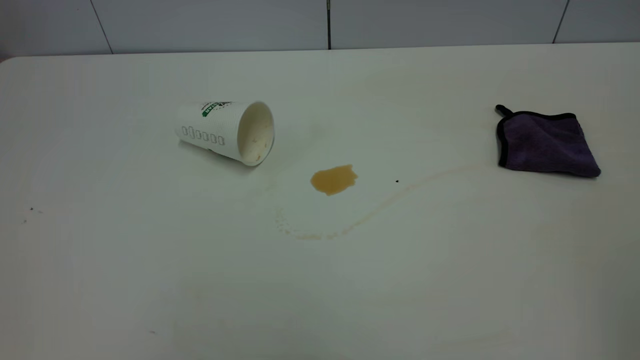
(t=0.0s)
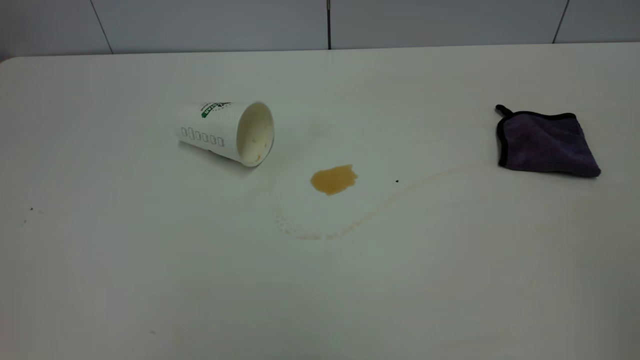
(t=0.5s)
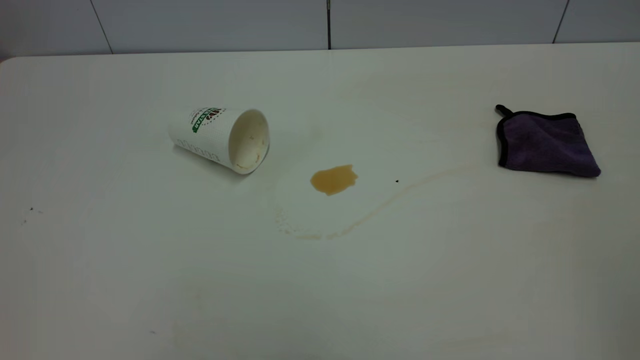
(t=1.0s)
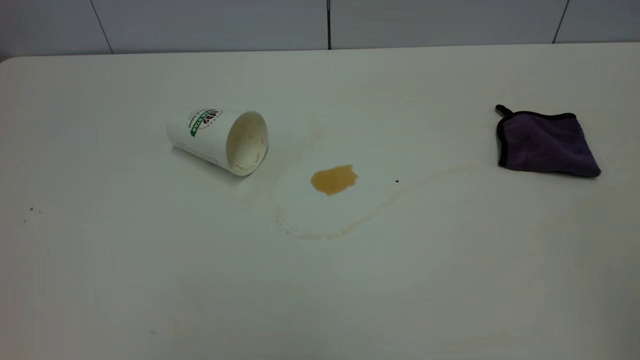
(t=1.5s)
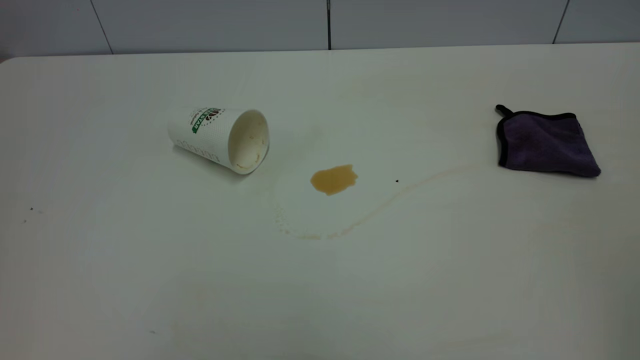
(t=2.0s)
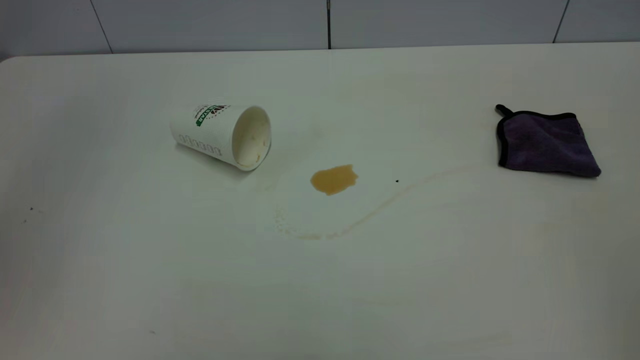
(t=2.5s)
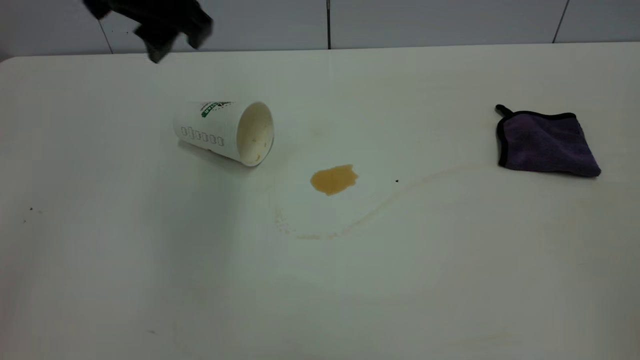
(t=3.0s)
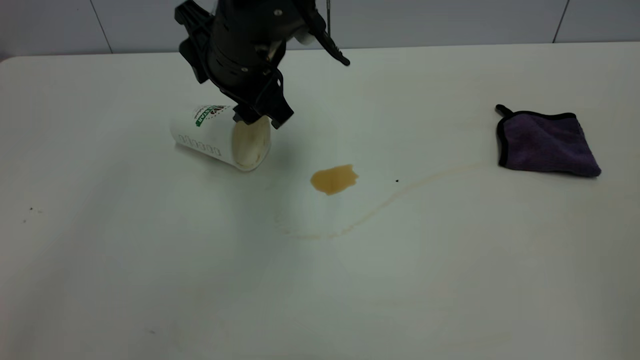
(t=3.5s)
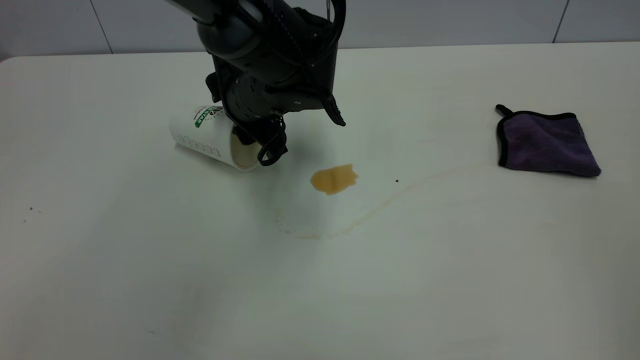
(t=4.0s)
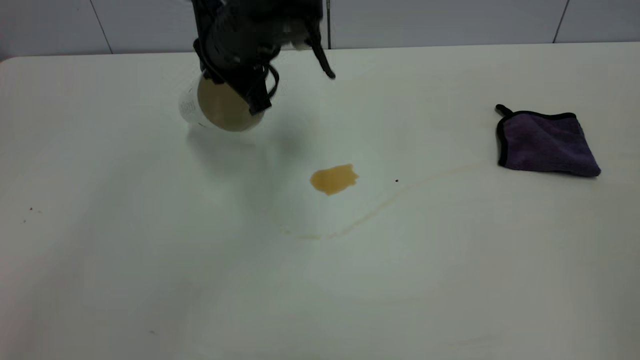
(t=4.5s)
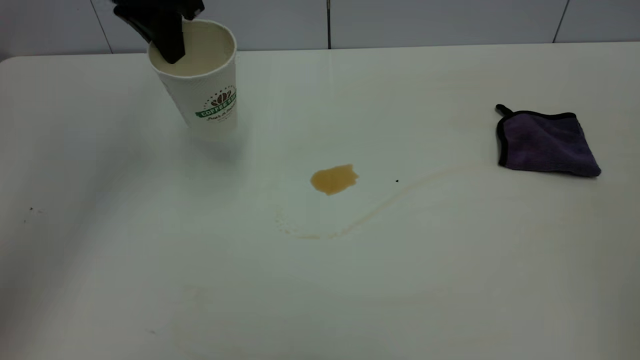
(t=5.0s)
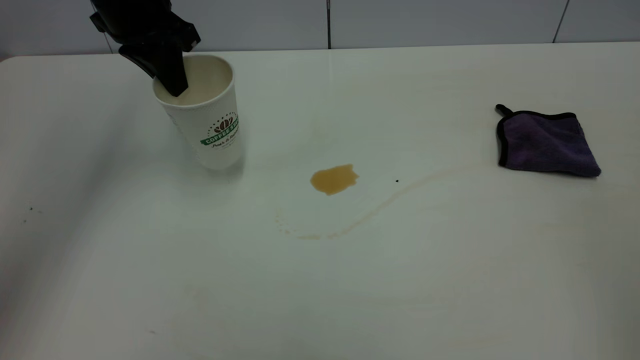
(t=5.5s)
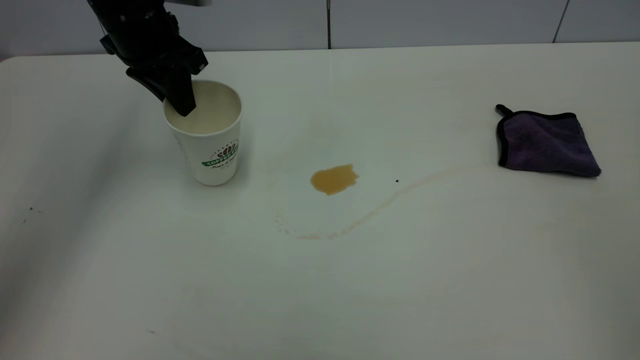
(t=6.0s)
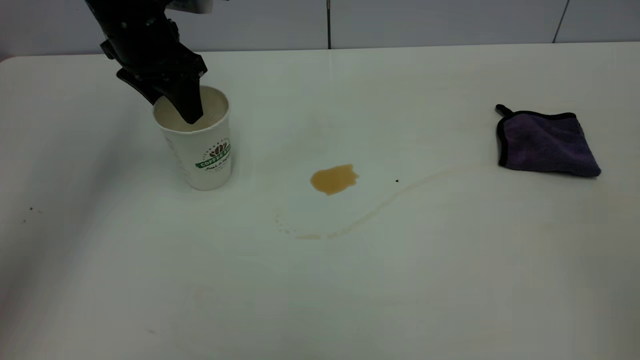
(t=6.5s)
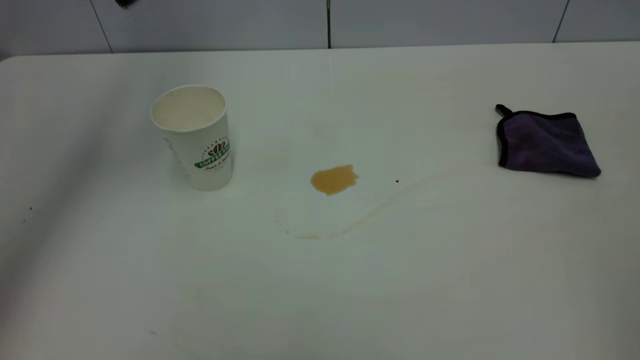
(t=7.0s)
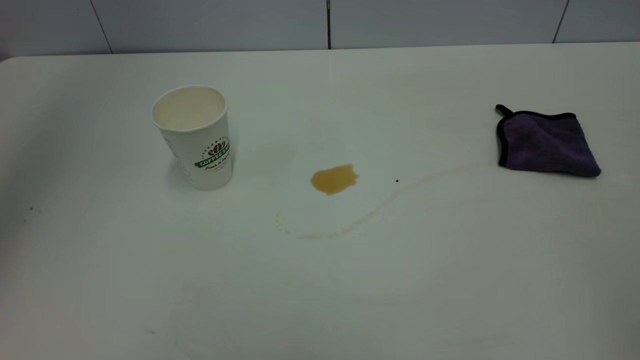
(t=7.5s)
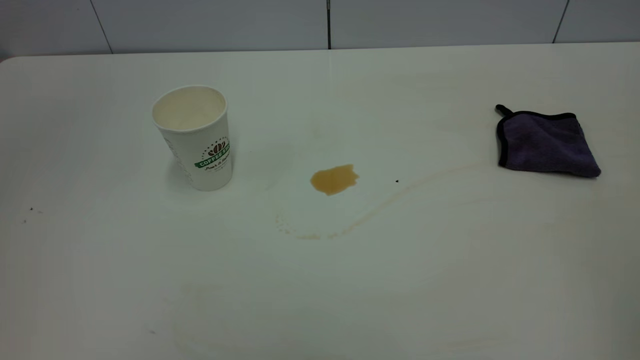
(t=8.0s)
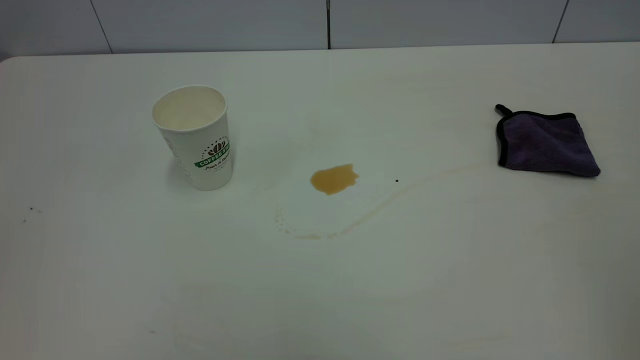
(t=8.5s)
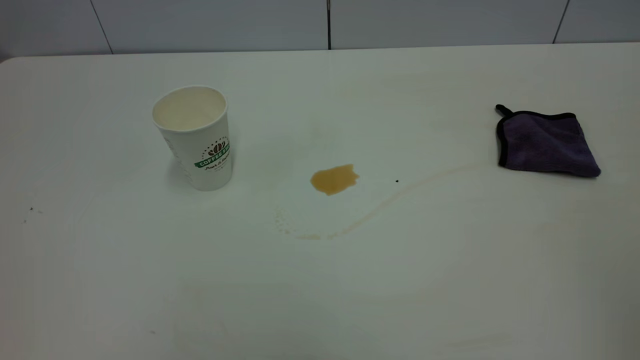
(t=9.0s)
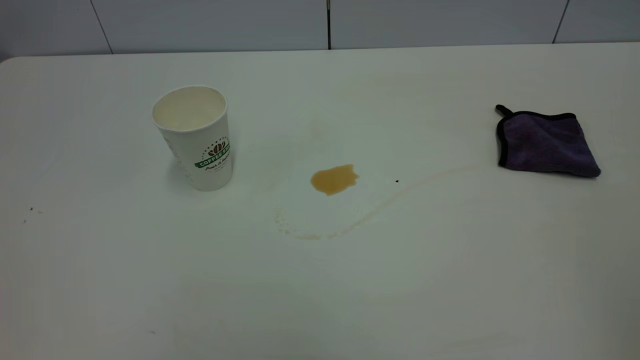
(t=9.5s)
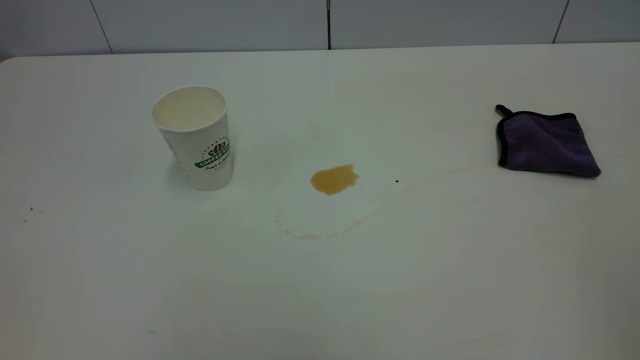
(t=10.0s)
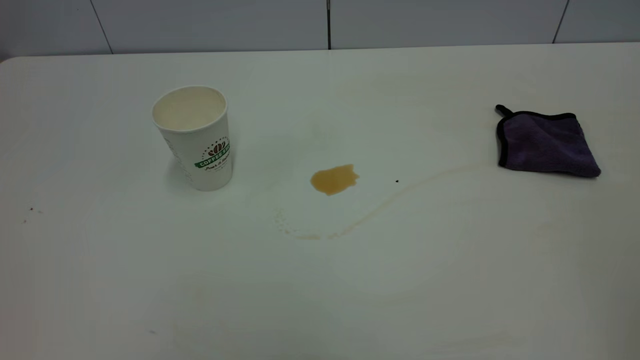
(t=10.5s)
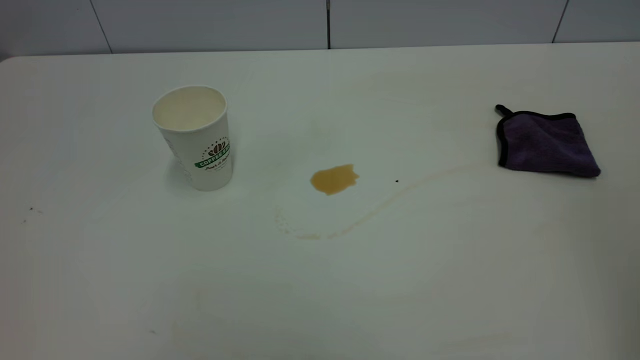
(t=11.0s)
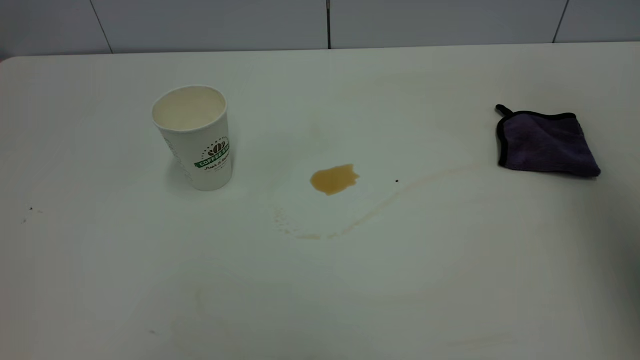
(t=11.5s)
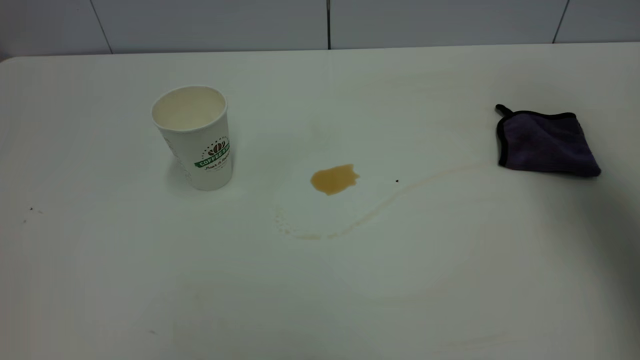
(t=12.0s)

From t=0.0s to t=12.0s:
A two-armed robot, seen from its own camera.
Task of the whole recording: the left gripper pick up the fallen cup and place it upright, the right gripper grasp the purple rag and wipe the tea stain on the table, the right gripper put the purple rag back in its original position.
Step, from t=0.0s to t=6.5s: Stand the paper cup upright.
From t=0.0s to t=2.0s: The left gripper goes roughly 10 cm forward.
From t=2.0s to t=4.0s: The left gripper heads forward, downward and to the right, covering some 50 cm.
From t=4.0s to t=6.0s: The left gripper is displaced to the left and upward by about 15 cm, and closes its fingers.
From t=6.0s to t=8.0s: The left gripper shifts approximately 40 cm backward and upward, and opens its fingers.
From t=10.0s to t=12.0s: The right gripper is displaced forward by some 35 cm, and opens up.

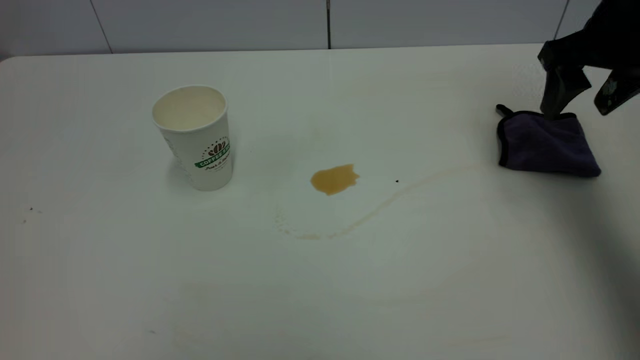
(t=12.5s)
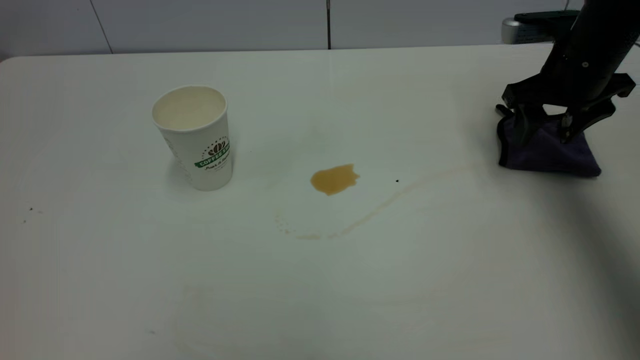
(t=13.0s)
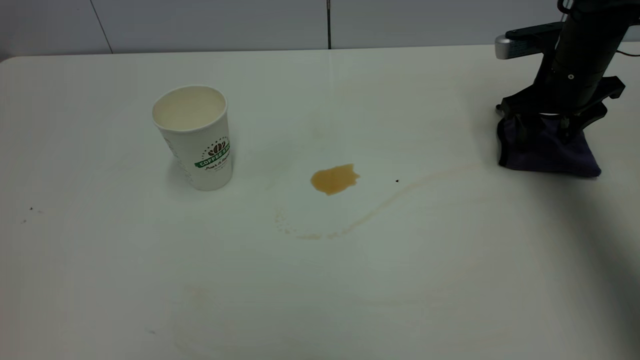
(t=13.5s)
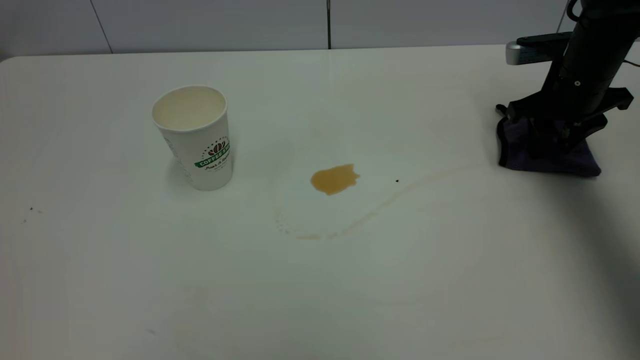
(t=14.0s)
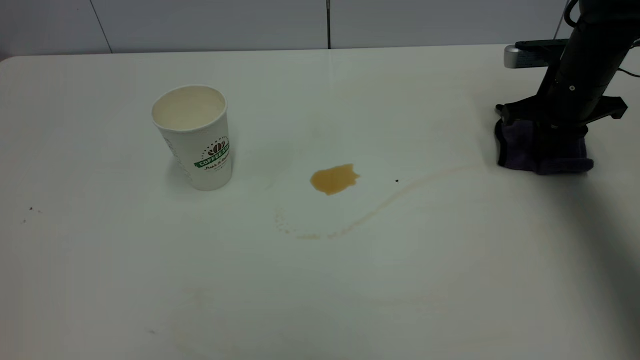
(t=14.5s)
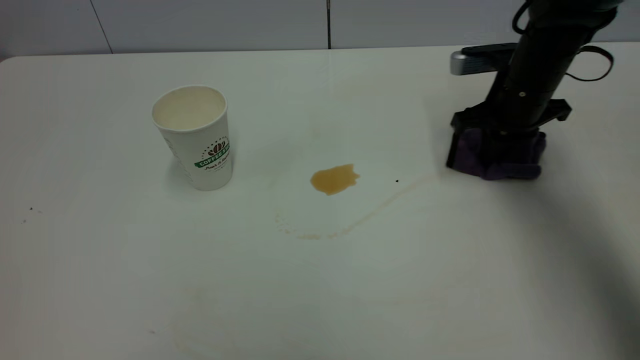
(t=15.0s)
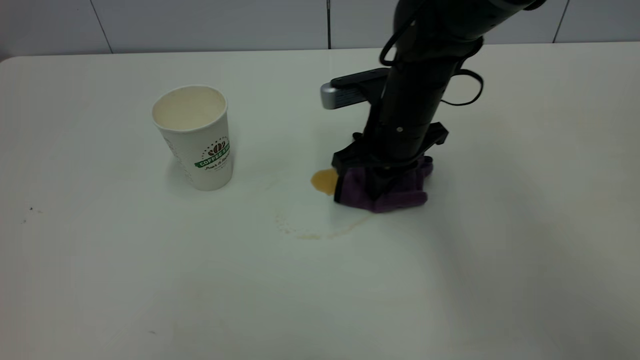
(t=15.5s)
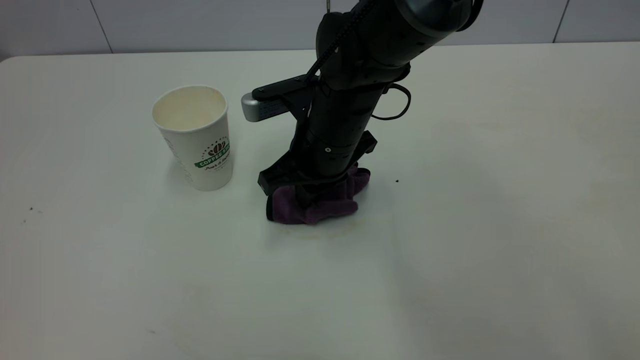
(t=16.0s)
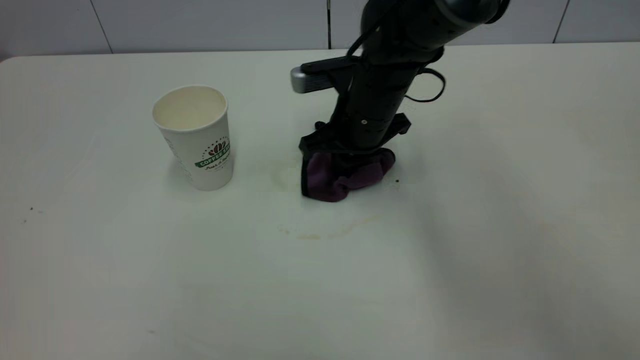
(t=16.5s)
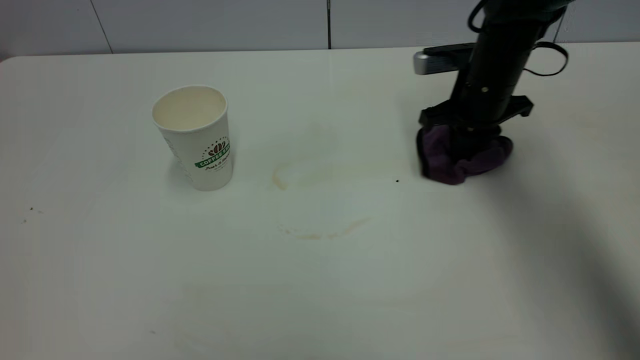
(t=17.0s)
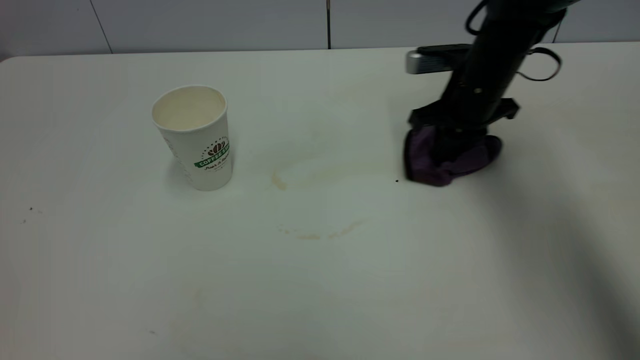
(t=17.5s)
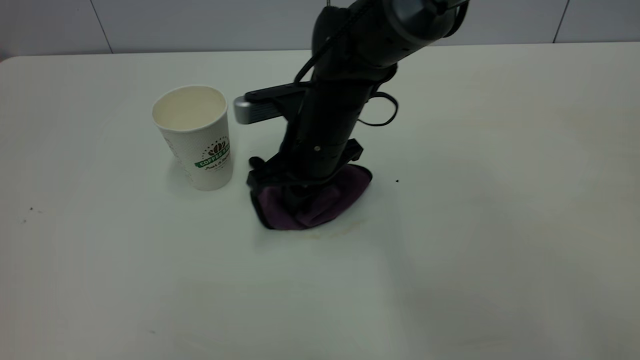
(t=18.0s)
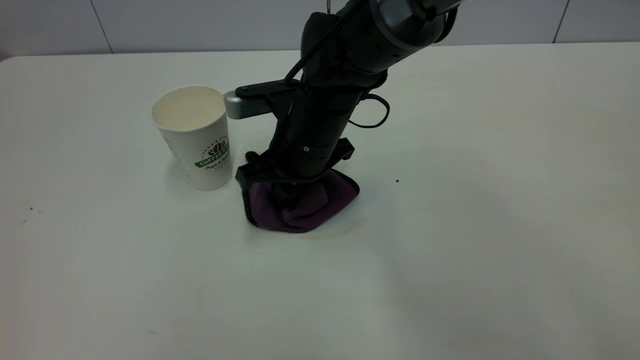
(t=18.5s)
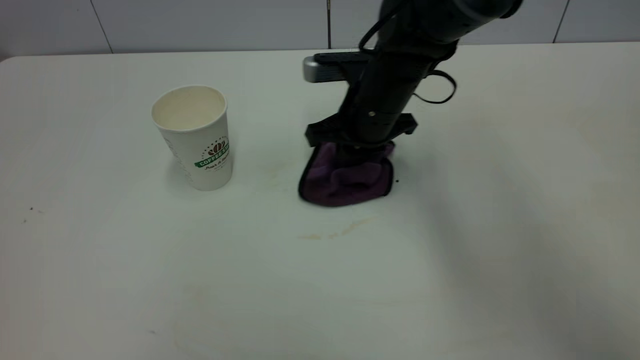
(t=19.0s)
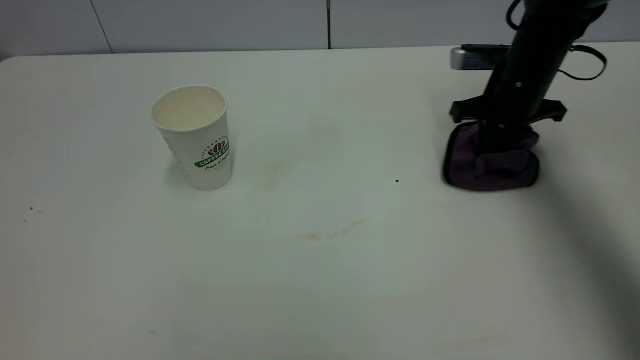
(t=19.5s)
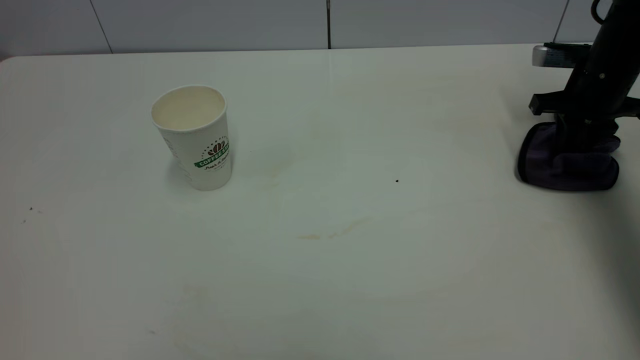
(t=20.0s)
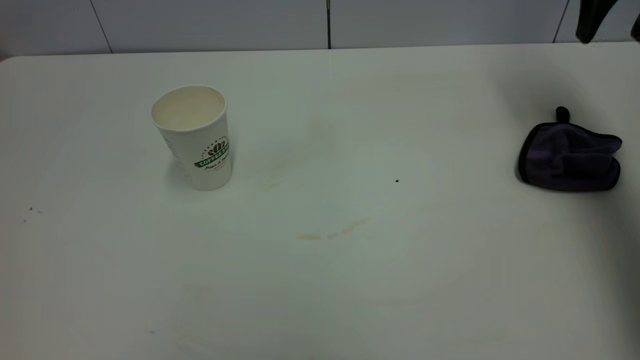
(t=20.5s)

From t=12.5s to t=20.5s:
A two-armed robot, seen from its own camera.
Task of the whole recording: the left gripper pick up the fallen cup and place it upright, the right gripper grasp the purple rag and wipe the tea stain on the table, the right gripper put the purple rag back in its original position.
Step, from t=12.5s to t=20.0s: Wipe the stains off the table with a rag.
From t=12.5s to t=14.5s: The right gripper moves downward and forward, about 15 cm, and closes up.
From t=14.5s to t=16.5s: The right gripper is displaced to the left by approximately 25 cm.
From t=16.5s to t=18.5s: The right gripper travels to the right and back again, approximately 15 cm each way.
From t=18.5s to t=20.5s: The right gripper travels to the right and upward by about 40 cm, and opens its fingers.
